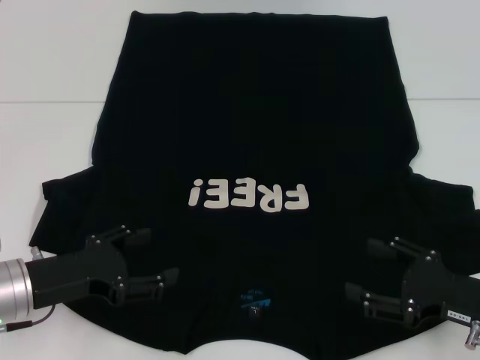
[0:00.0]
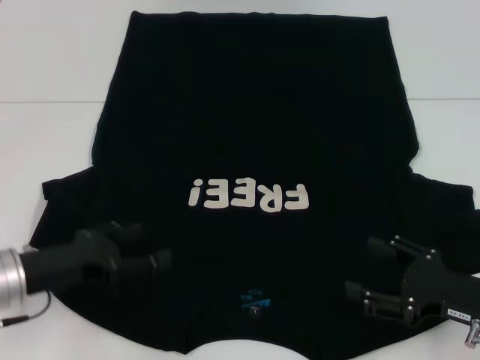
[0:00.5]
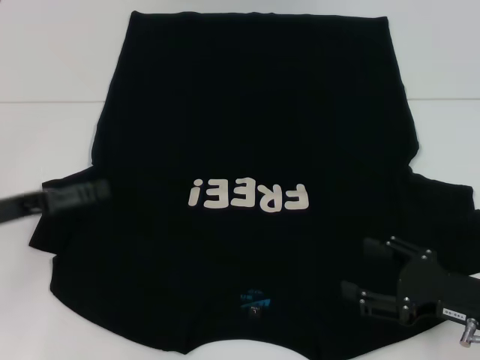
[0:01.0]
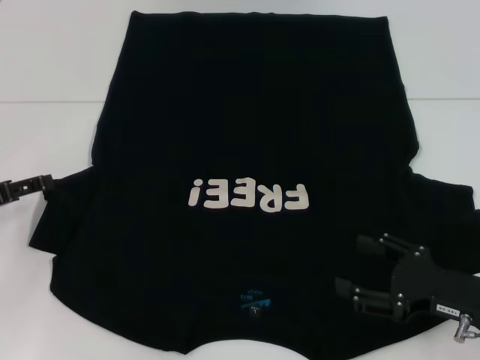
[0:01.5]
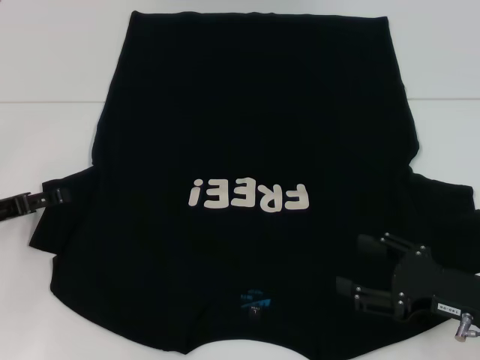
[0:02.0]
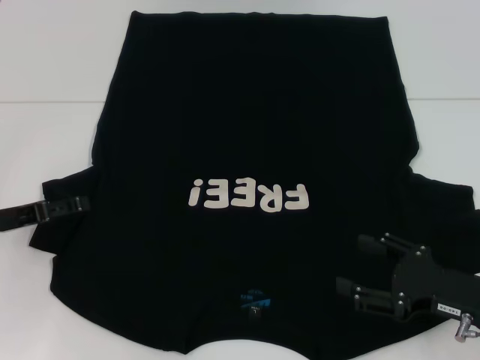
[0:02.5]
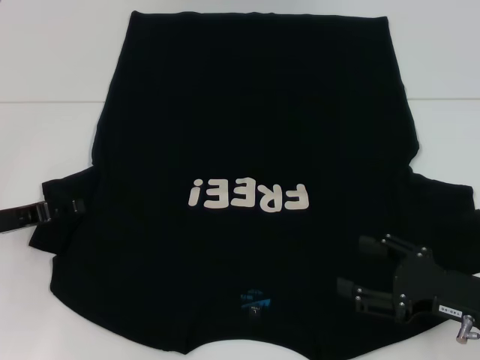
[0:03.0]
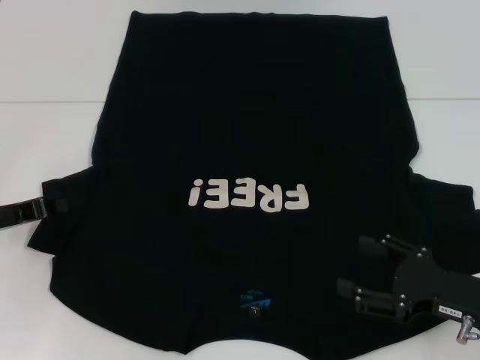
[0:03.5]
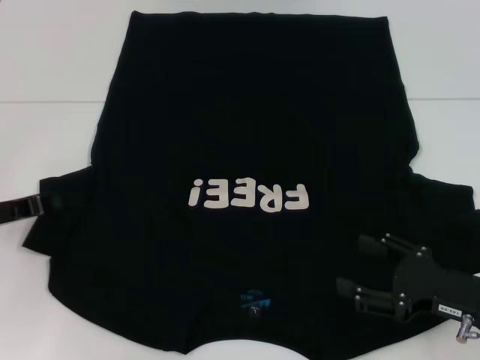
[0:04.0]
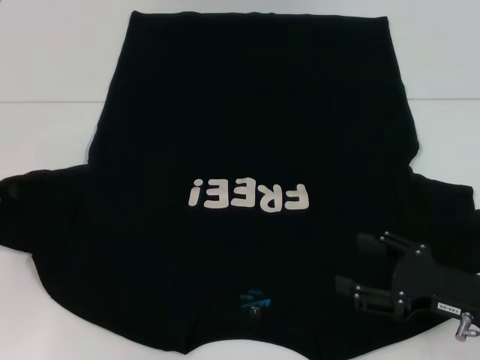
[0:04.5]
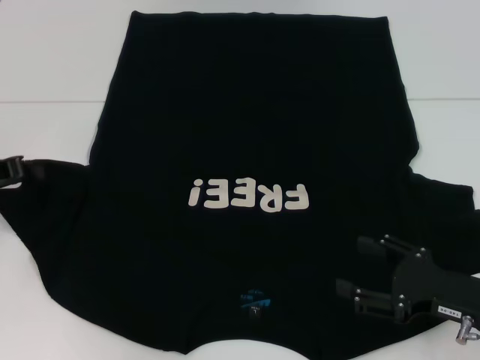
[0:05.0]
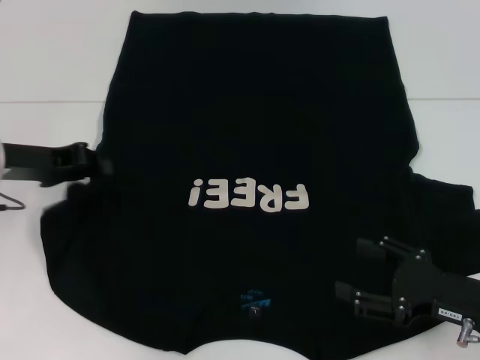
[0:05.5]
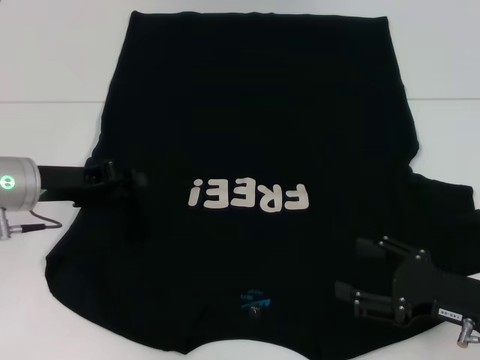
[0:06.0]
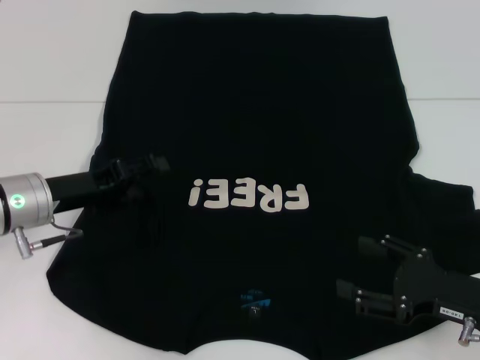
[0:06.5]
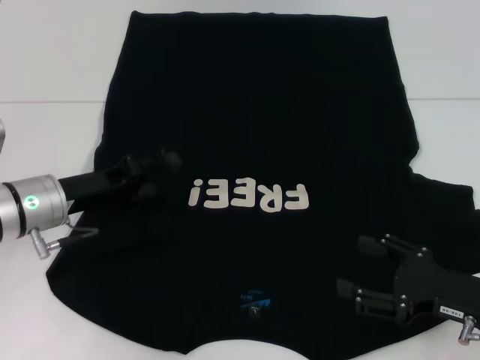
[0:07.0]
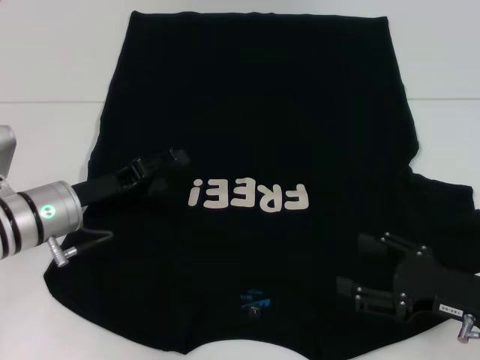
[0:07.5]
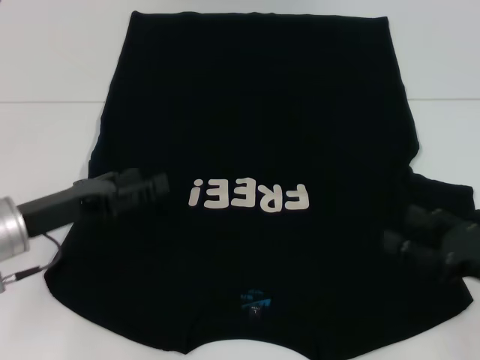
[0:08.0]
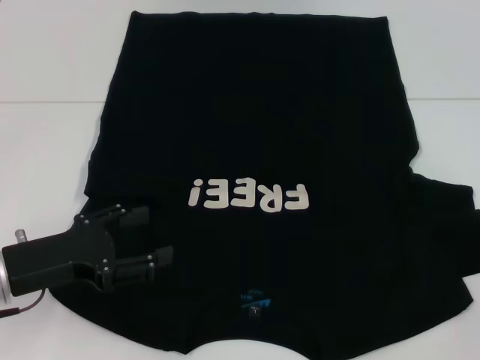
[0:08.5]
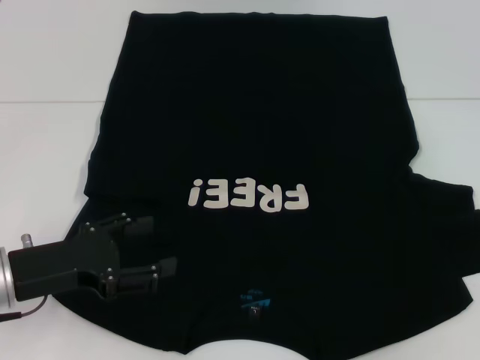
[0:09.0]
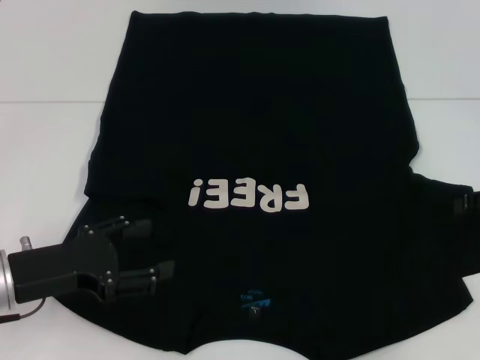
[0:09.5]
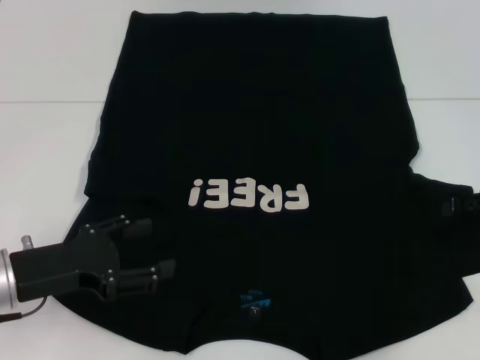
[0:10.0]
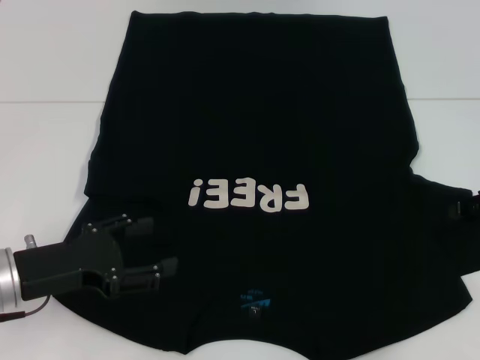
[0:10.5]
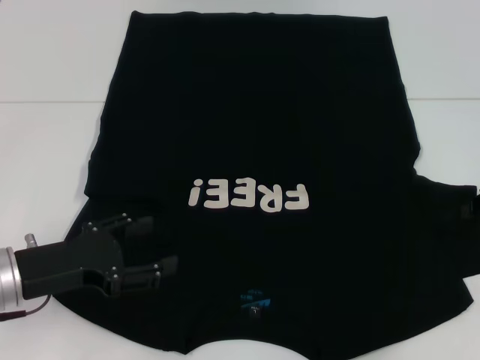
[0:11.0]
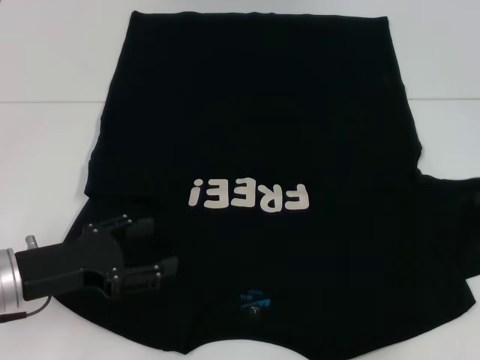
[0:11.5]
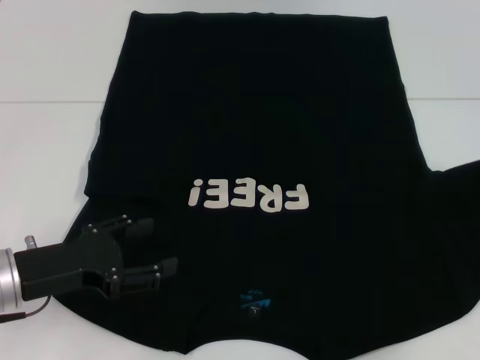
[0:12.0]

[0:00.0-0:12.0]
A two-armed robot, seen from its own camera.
Step, 0.0 to 7.5 s: Fold the bottom left sleeve with your left hand.
0.0 to 2.0 s: The left gripper moves to the left and forward, some 10 cm.
2.0 to 4.0 s: The left gripper closes its fingers.
4.0 to 6.0 s: The left gripper moves to the right, about 5 cm.
6.0 to 8.0 s: The left gripper goes about 5 cm backward, and opens its fingers.
8.0 to 10.0 s: The right gripper travels forward and upward by approximately 15 cm.
10.0 to 12.0 s: The right gripper ends up about 5 cm from where it was, and closes.

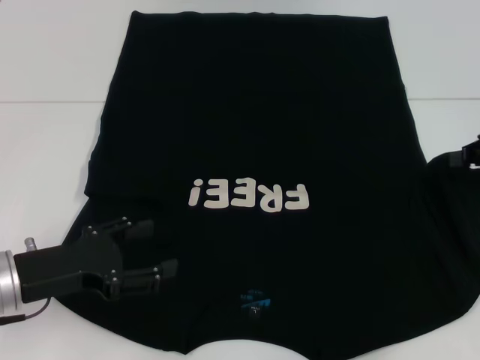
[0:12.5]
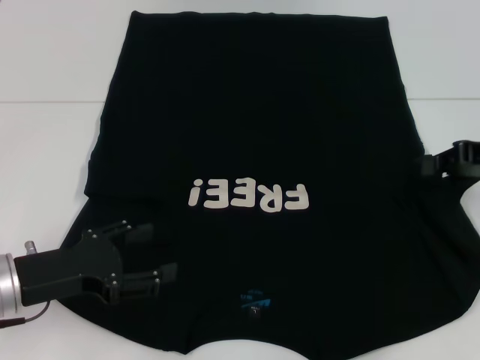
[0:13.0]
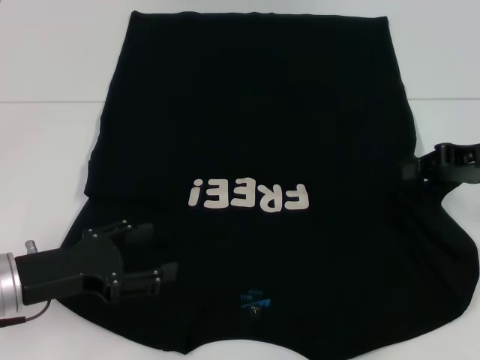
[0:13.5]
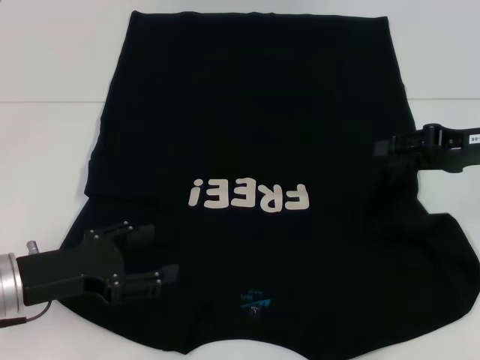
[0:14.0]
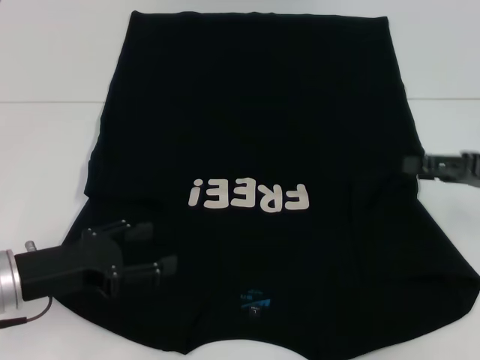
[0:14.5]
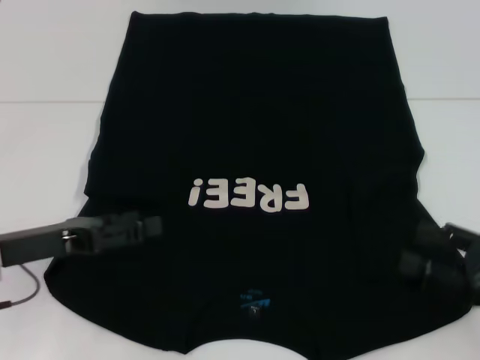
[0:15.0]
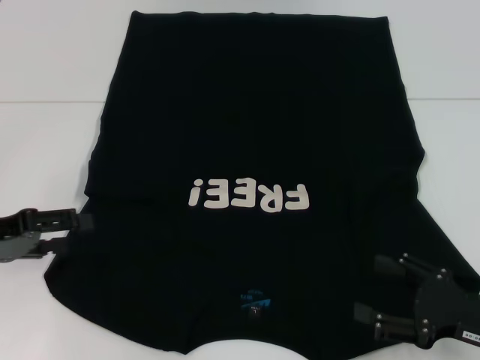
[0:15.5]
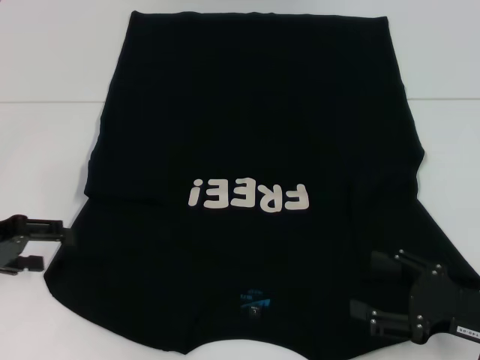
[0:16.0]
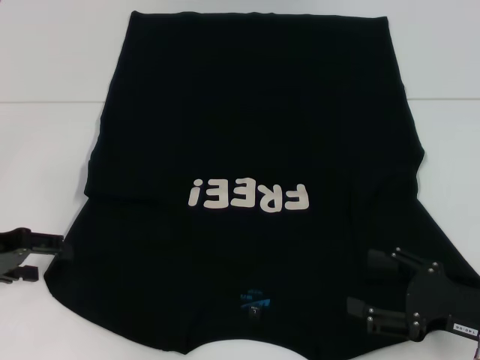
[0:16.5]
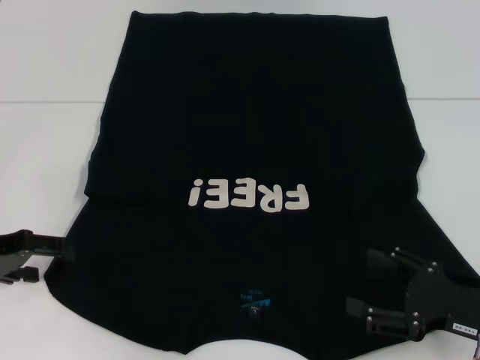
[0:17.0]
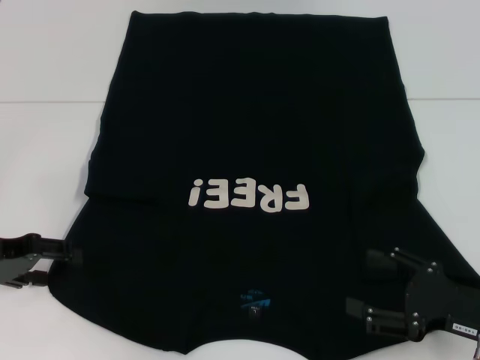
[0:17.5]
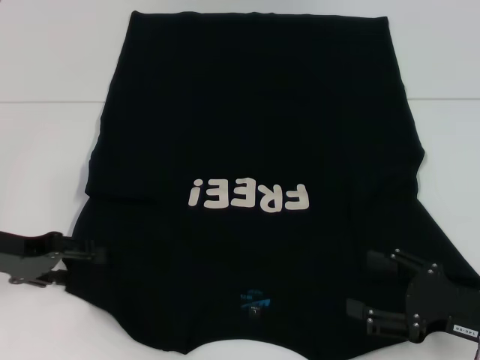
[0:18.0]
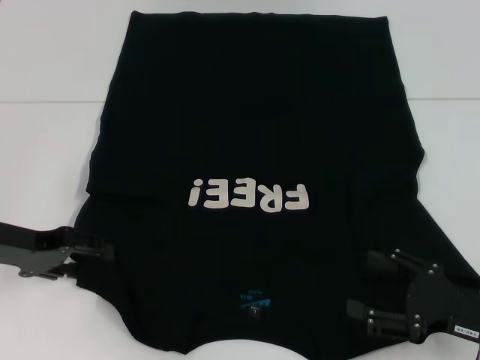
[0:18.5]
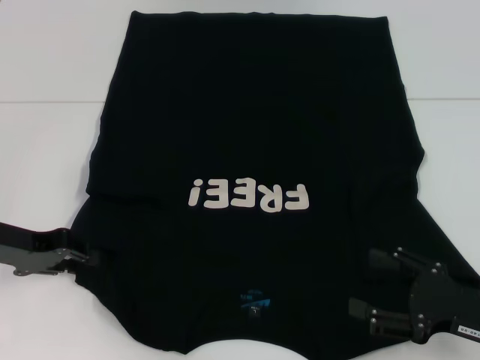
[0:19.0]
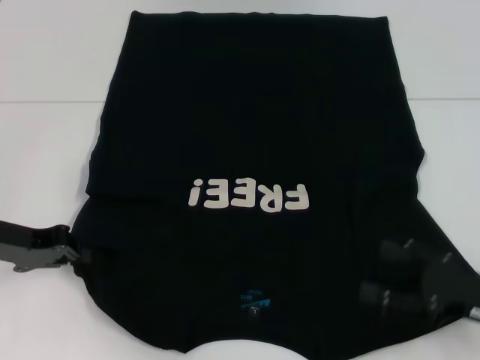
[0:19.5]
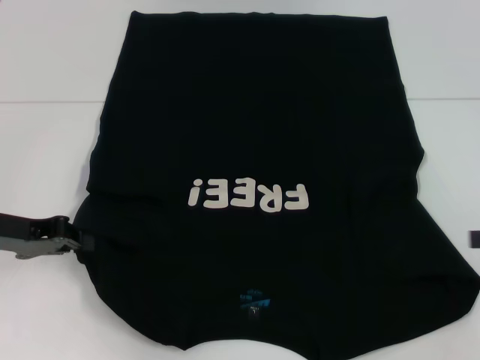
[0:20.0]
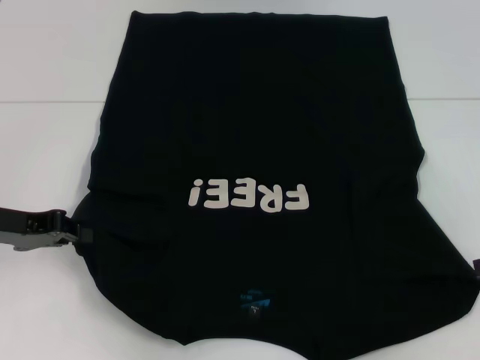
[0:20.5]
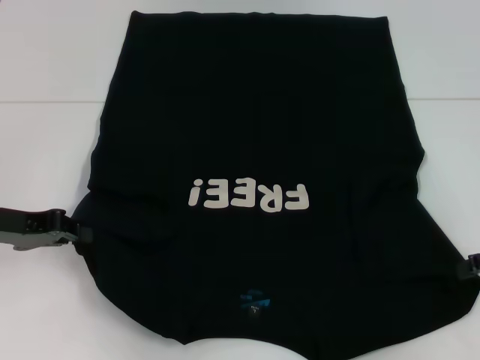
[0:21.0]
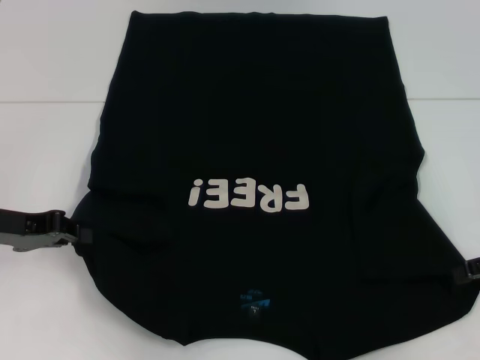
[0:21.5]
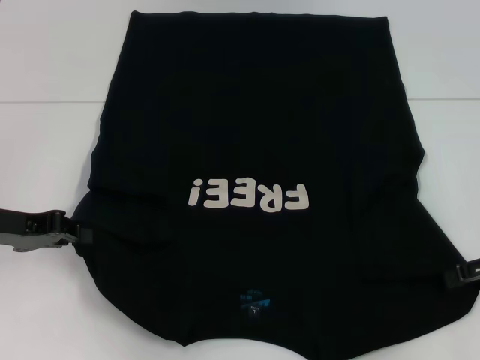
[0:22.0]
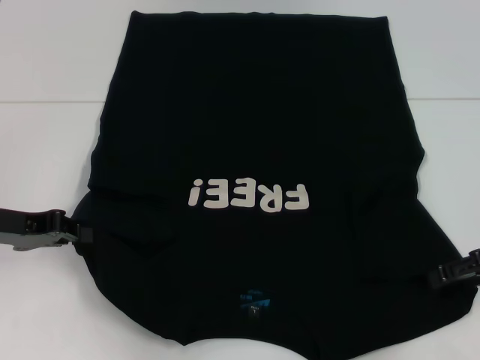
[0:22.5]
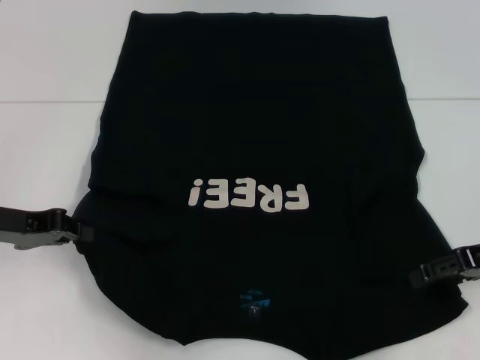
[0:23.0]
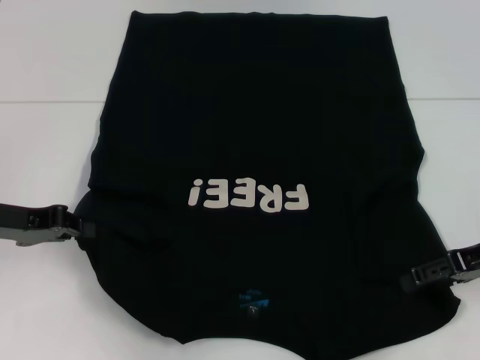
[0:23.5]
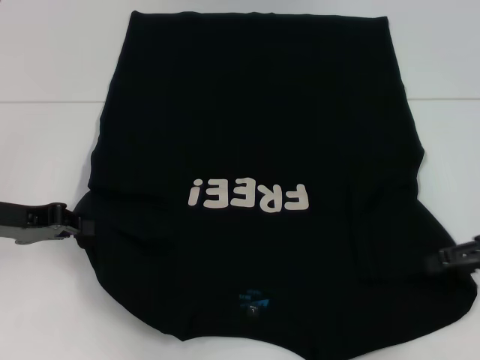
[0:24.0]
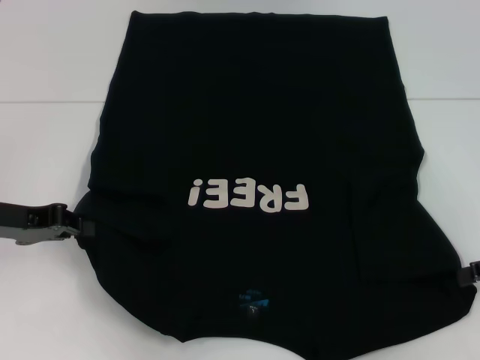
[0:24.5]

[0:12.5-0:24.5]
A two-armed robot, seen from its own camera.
Step, 14.5 to 19.5 s: Grab the bottom left corner with your left hand.
12.5 to 14.5 s: The right gripper ends up some 5 cm from where it was, and opens its fingers.
14.5 to 16.5 s: The left gripper moves to the left, some 10 cm; the right gripper heads backward and downward, covering roughly 15 cm.
16.5 to 18.5 s: There are only small adjustments of the grippers.
18.5 to 20.5 s: The right gripper goes some 15 cm upward, to the right and forward. Meanwhile the left gripper closes its fingers.
22.5 to 24.5 s: The grippers make only small movements.

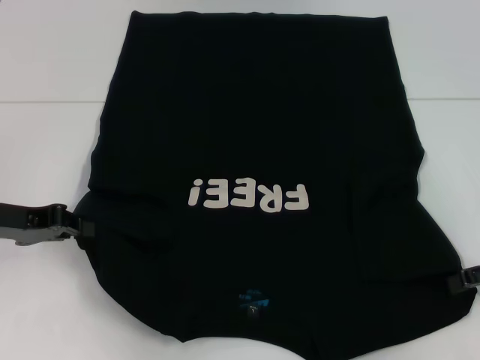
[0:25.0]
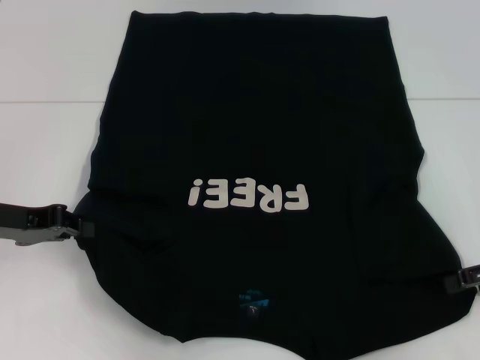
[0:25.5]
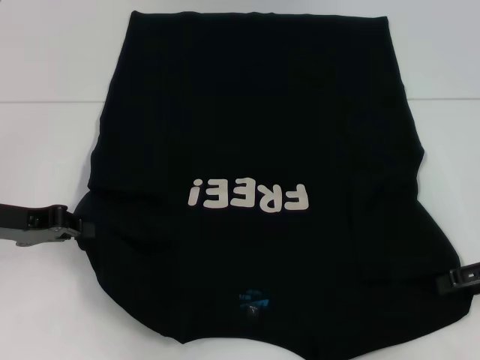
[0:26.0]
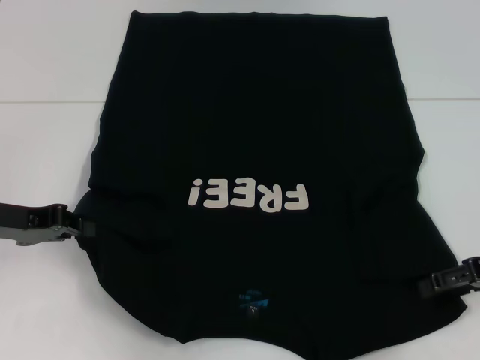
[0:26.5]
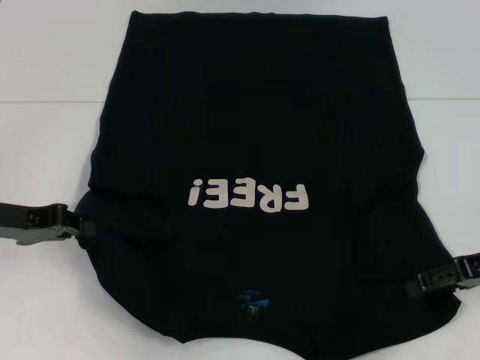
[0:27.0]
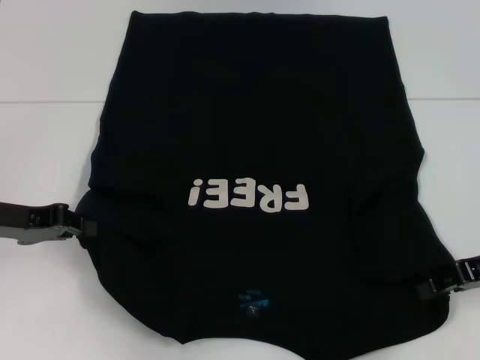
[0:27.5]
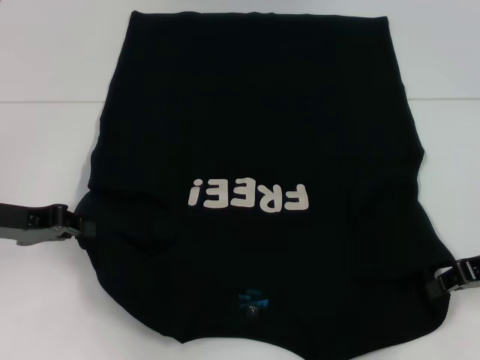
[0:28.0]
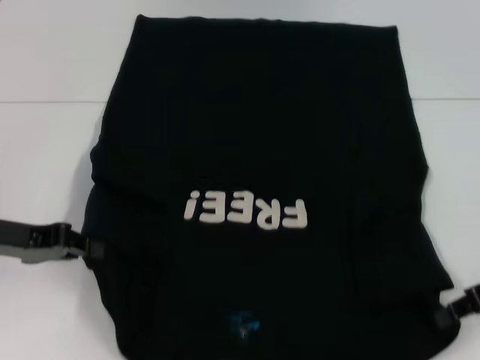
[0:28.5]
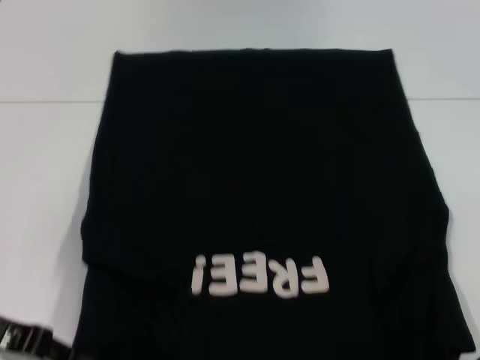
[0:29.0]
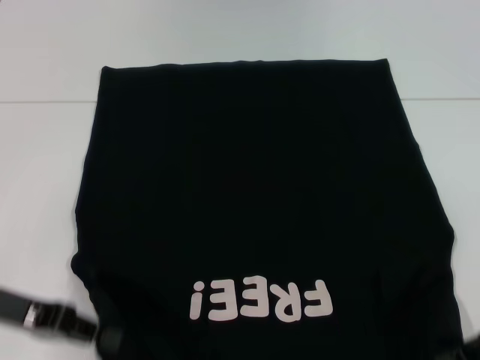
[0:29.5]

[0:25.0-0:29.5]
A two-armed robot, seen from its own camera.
Step, 25.0 to 28.0 s: Grab the bottom right corner with your right hand.
25.0 to 27.0 s: There are only small adjustments of the grippers.
27.0 to 29.5 s: The two grippers go approximately 5 cm backward. The right gripper closes.
